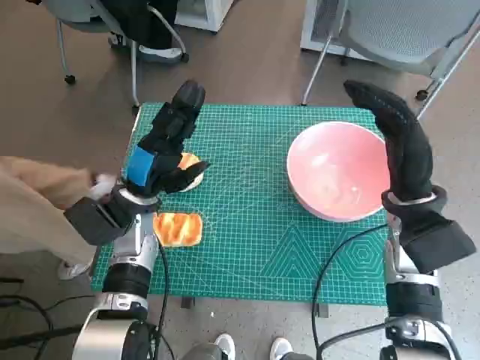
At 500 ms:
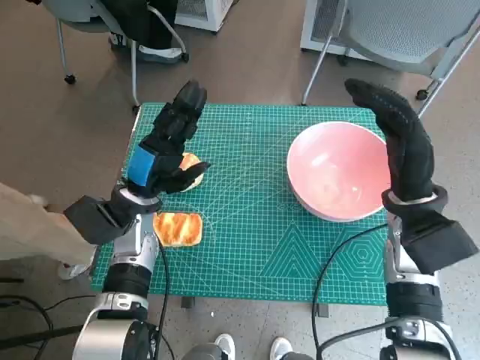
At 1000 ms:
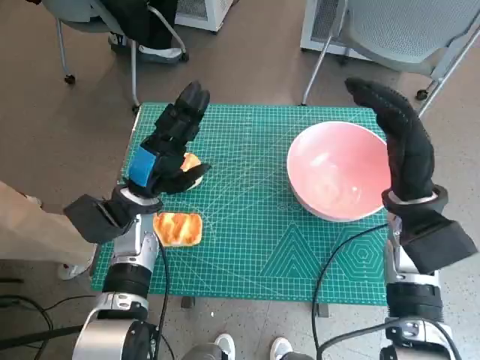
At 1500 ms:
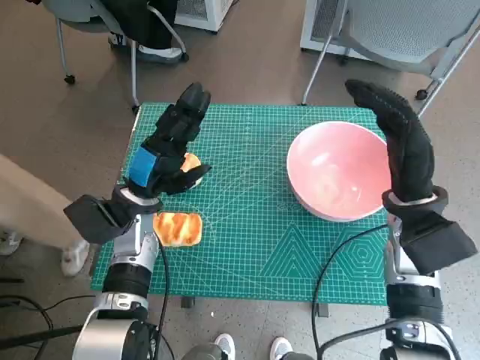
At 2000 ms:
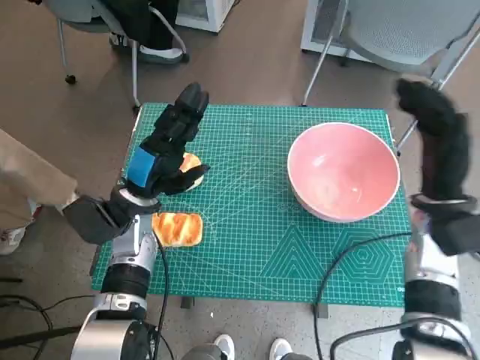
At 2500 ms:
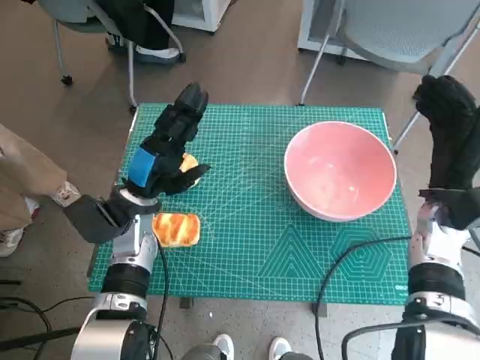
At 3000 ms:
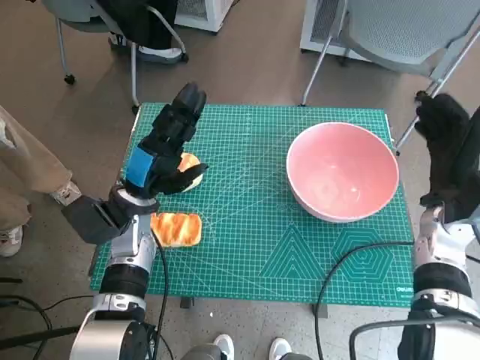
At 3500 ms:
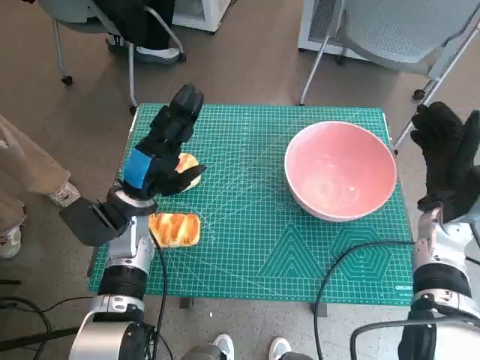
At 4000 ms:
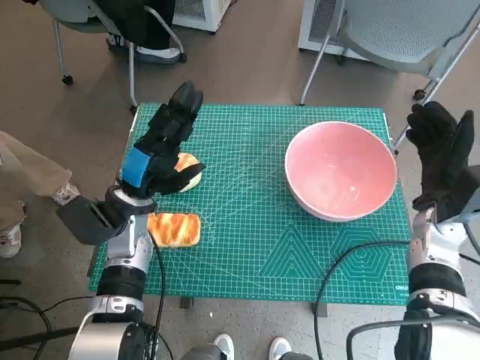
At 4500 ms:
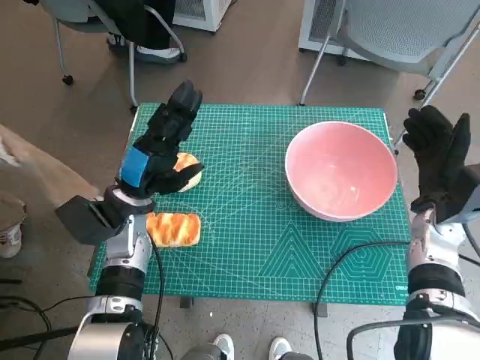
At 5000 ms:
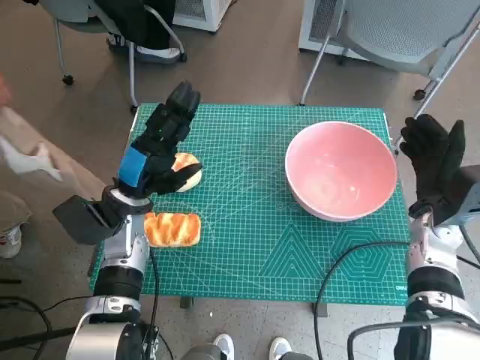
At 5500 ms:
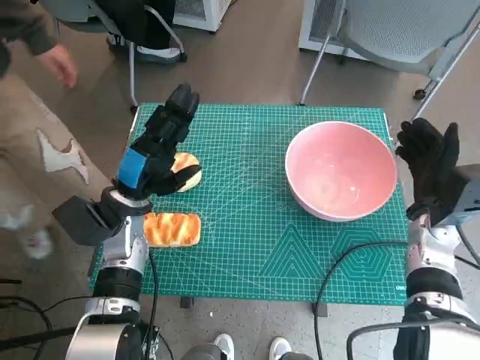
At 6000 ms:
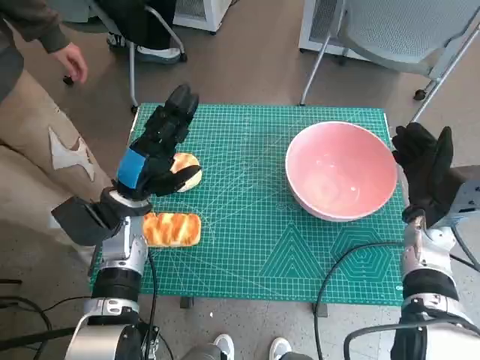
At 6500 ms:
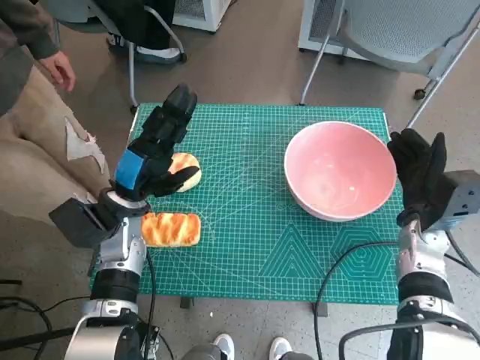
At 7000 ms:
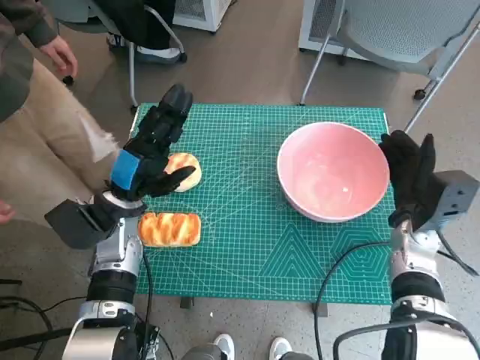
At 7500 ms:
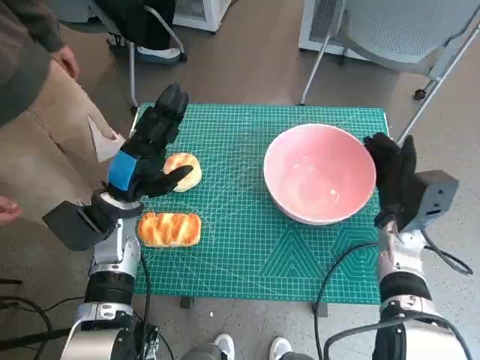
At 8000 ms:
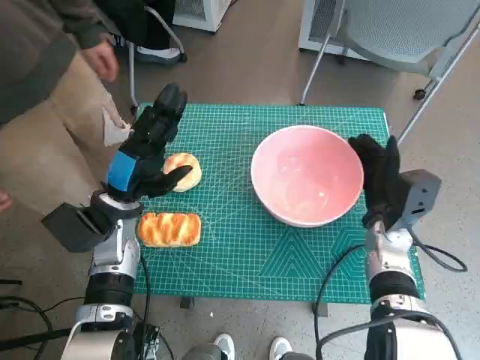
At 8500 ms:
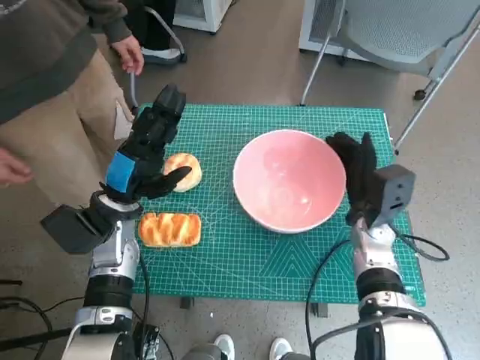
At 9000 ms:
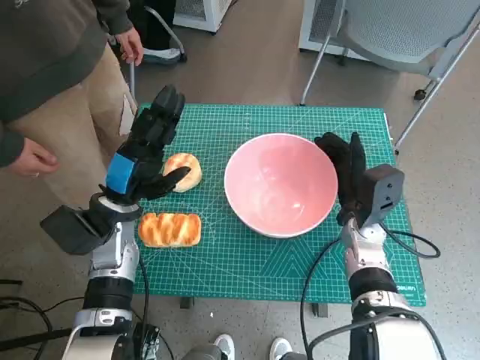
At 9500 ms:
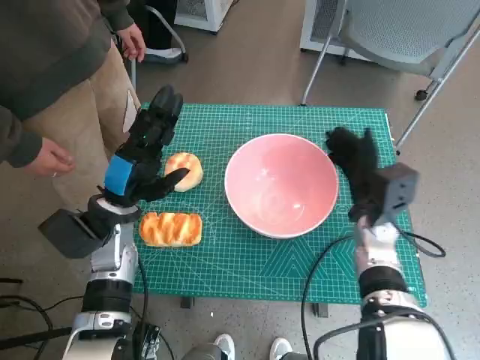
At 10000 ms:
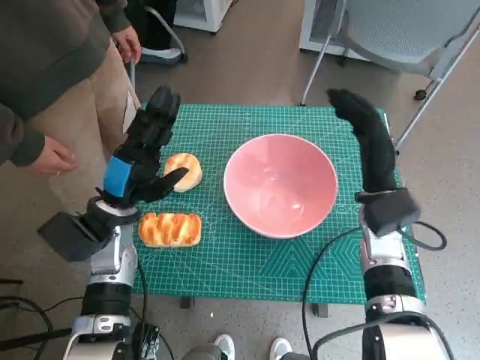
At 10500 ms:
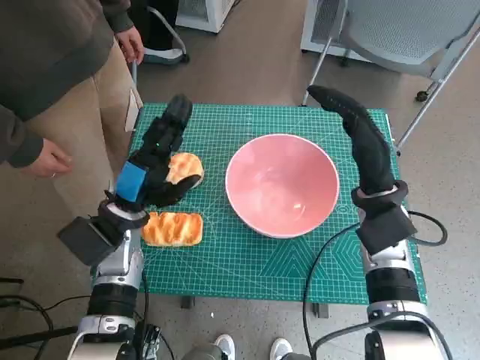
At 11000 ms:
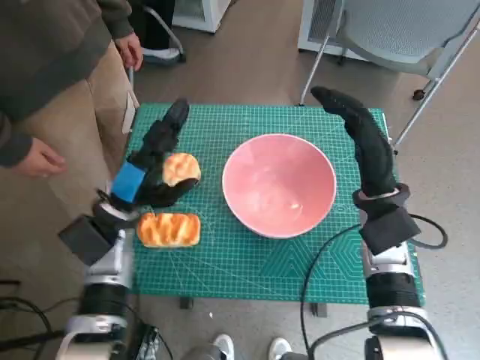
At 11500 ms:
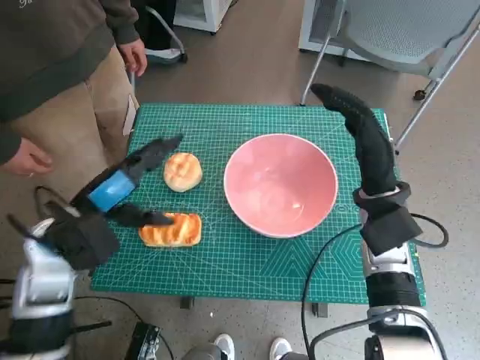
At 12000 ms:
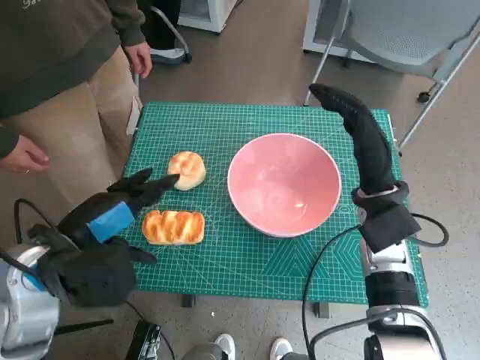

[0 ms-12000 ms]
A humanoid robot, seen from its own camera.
Step, 0 ms to 9500 ms: Move the pink bowl to the center of table with right hand.
4000 ms to 6000 ms: The hands make only small movements.
6000 ms to 8000 ms: The right hand moves approximately 5 cm.
8000 ms to 10000 ms: The right hand goes roughly 5 cm upward.
10000 ms to 12000 ms: The left hand shifts roughly 10 cm backward and upward.

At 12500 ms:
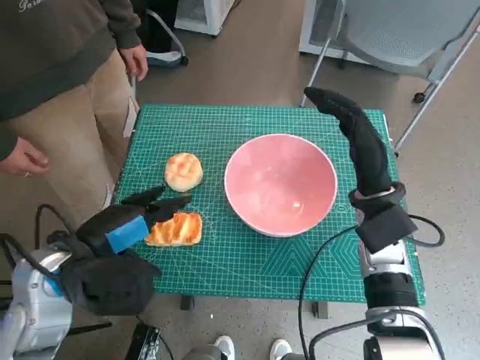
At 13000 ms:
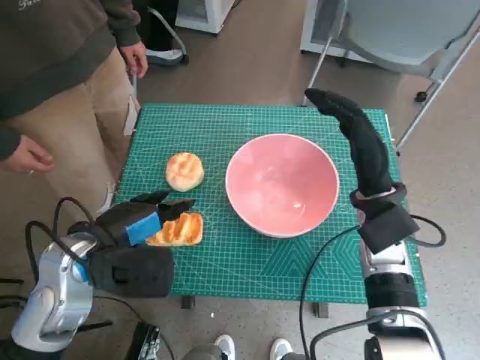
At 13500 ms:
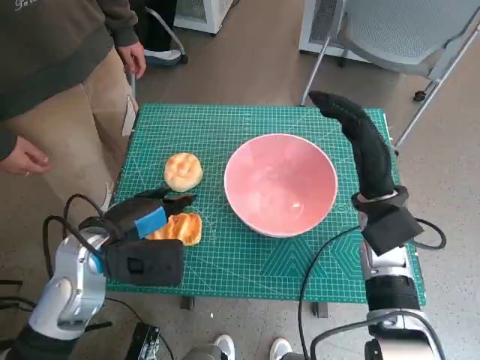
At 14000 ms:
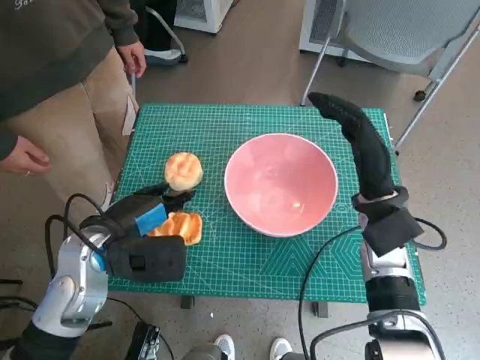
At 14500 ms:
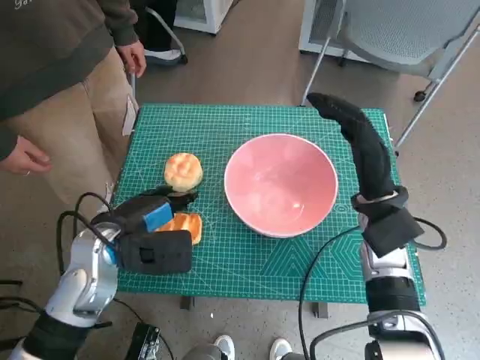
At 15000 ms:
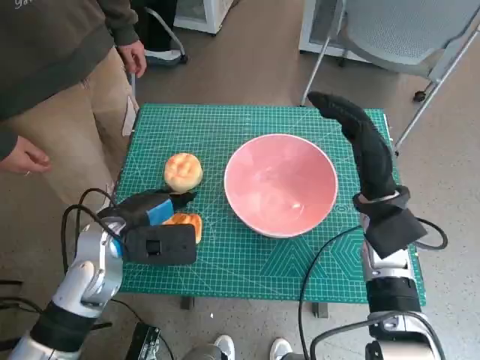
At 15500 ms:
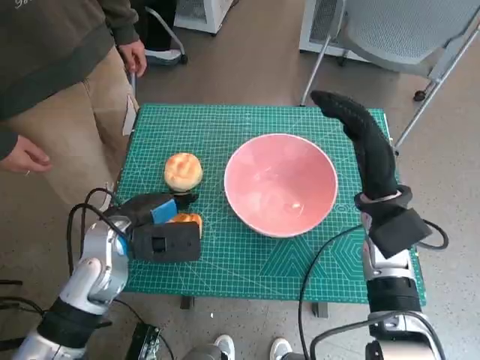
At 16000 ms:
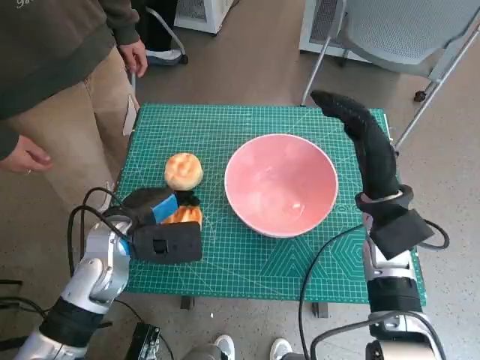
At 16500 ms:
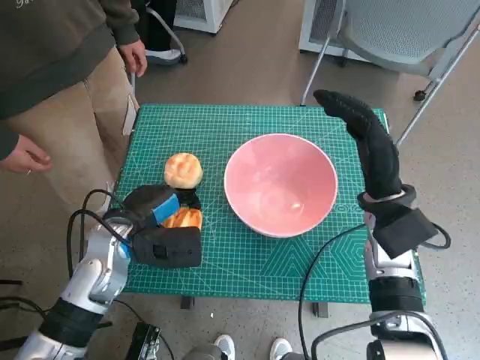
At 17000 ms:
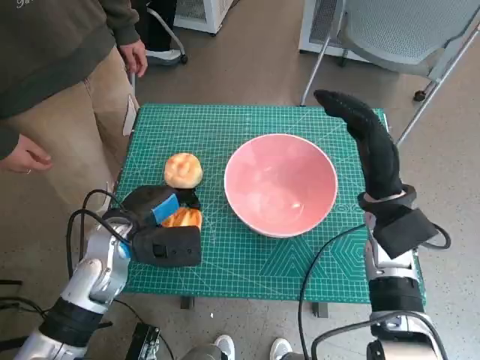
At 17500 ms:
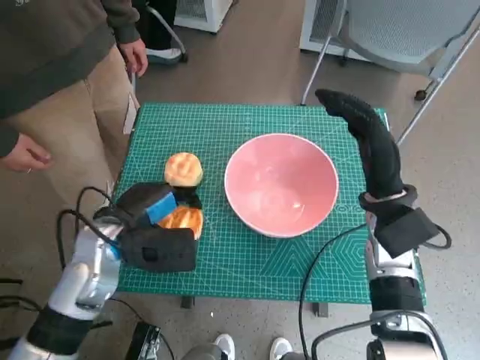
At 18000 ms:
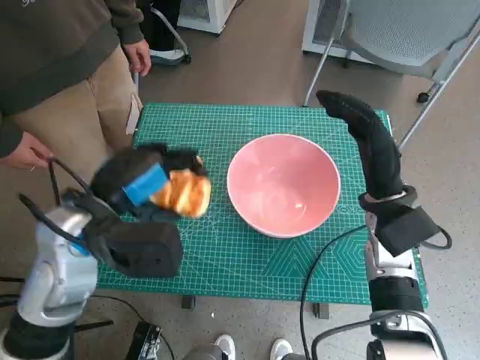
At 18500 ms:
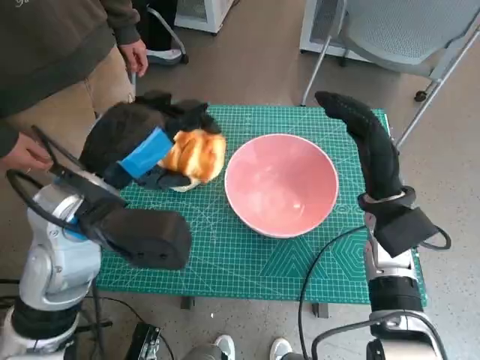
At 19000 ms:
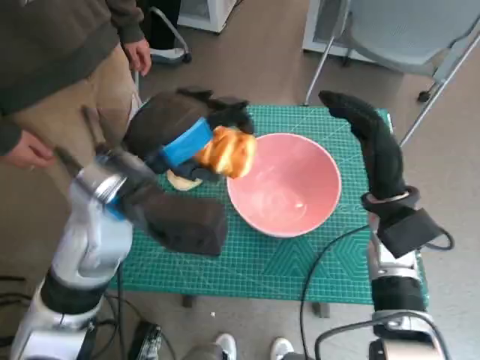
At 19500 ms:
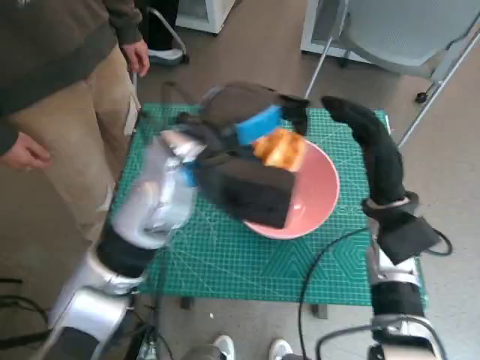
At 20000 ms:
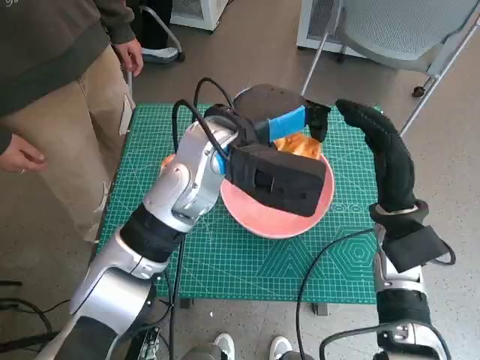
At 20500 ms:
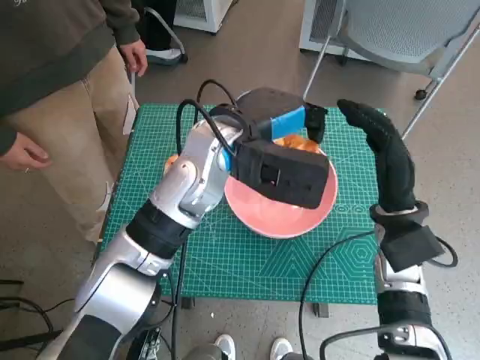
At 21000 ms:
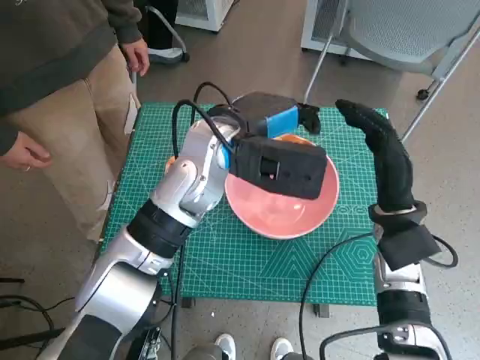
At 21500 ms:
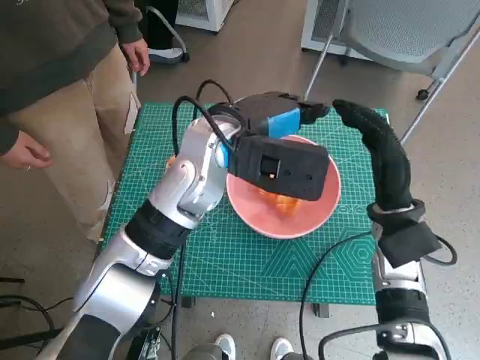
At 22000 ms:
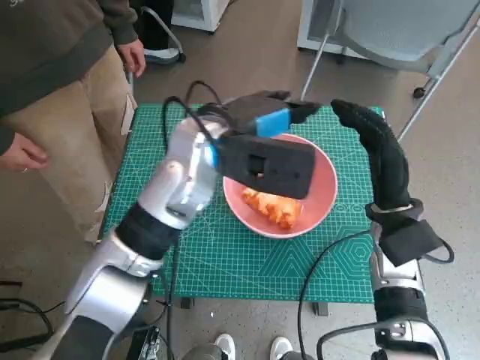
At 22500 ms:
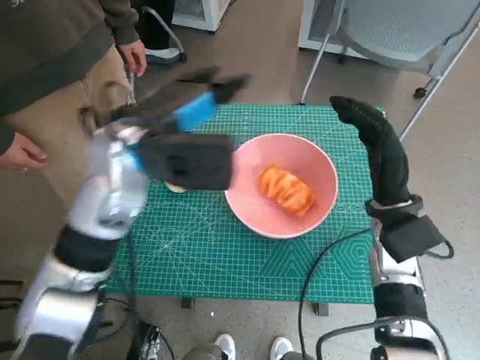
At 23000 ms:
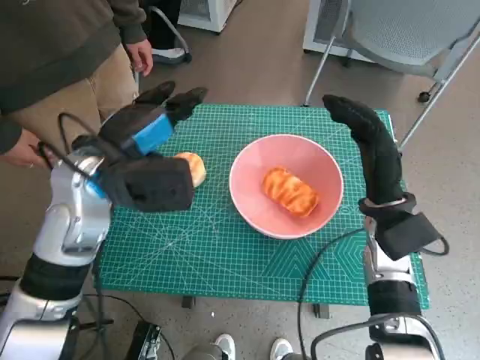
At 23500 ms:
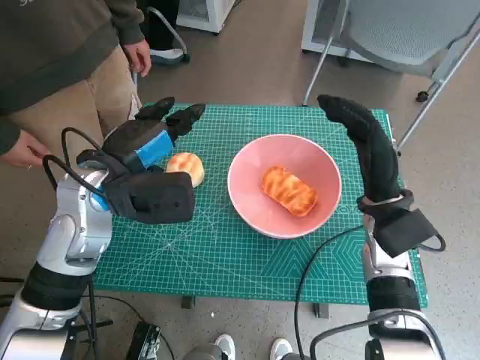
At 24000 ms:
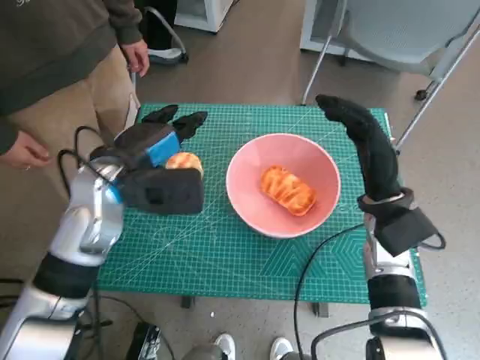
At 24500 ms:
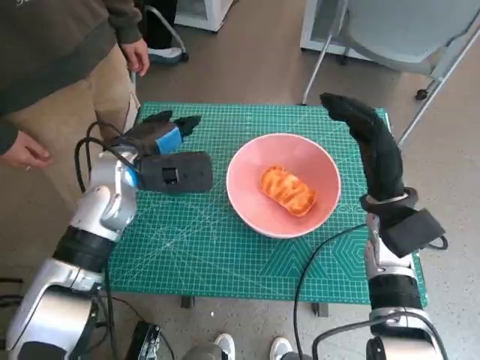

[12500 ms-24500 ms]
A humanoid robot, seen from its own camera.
Step, 12500 ms to 16500 ms: Grasp the long bread with left hand.
Step, 17000 ms to 21500 ms: Place the long bread in pink bowl with left hand.
12500 ms to 14500 ms: The left hand changes place by approximately 5 cm.
14500 ms to 16500 ms: The hands move only a little.
16500 ms to 18500 ms: The left hand travels upward by about 15 cm.
18500 ms to 20500 ms: The left hand is displaced to the right and forward by some 15 cm.
20500 ms to 22500 ms: The left hand travels to the left by about 10 cm.
22500 ms to 24500 ms: The left hand is displaced downward by roughly 5 cm.

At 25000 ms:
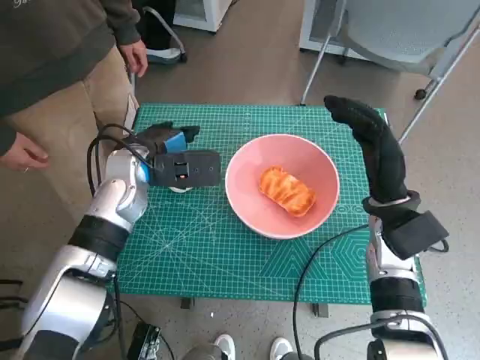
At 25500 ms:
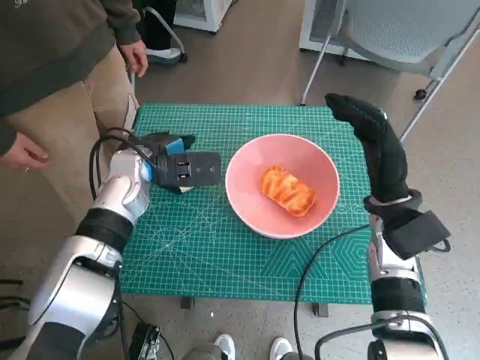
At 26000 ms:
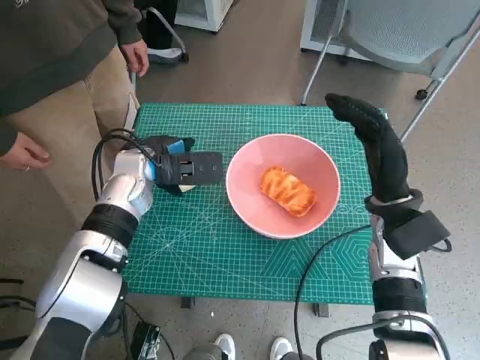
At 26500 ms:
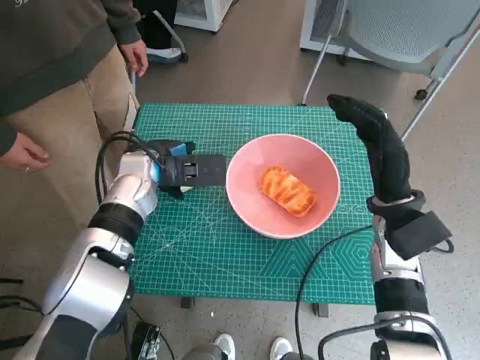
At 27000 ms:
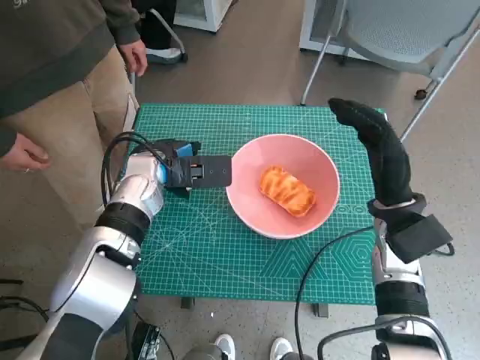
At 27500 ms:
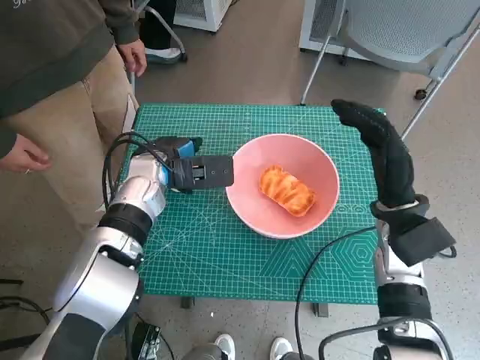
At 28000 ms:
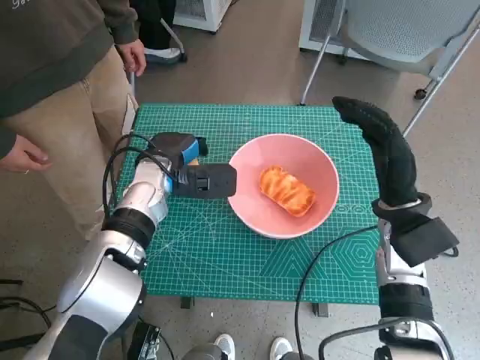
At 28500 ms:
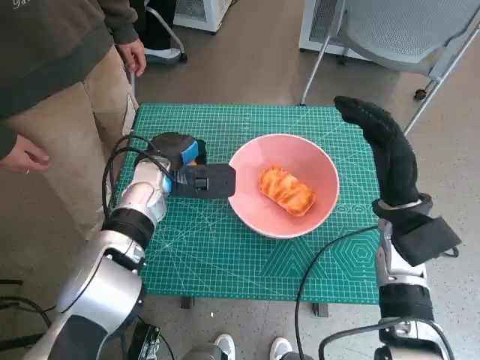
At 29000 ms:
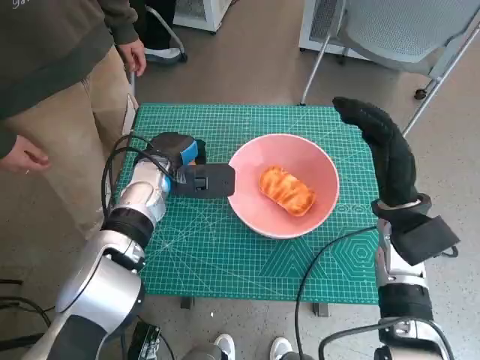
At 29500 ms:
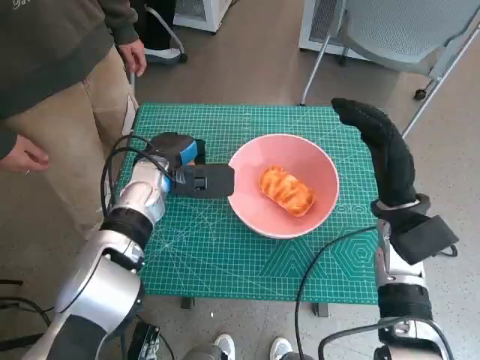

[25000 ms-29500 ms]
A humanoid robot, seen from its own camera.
Step, 25000 ms to 29000 ms: Grasp the round bread with left hand.
25000 ms to 29500 ms: The hands make only small movements.
